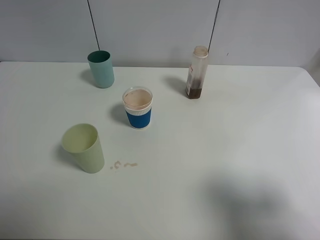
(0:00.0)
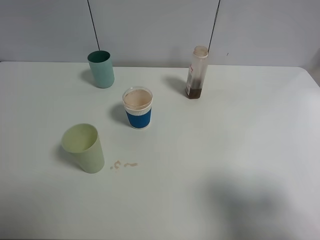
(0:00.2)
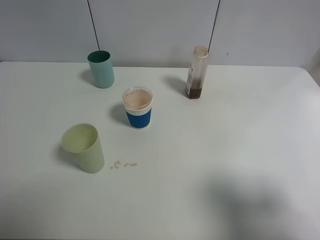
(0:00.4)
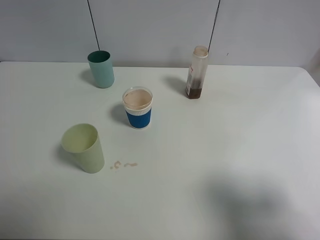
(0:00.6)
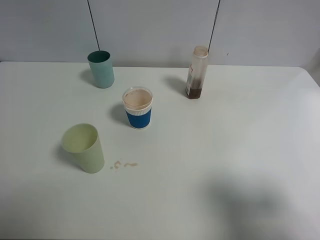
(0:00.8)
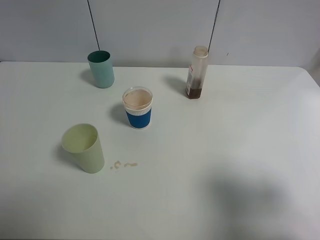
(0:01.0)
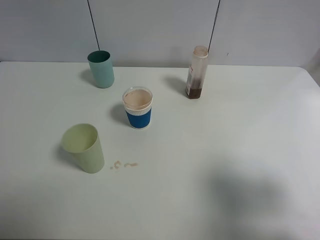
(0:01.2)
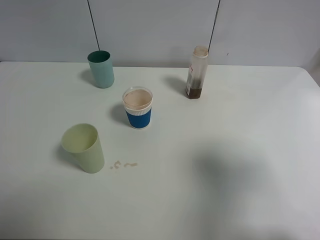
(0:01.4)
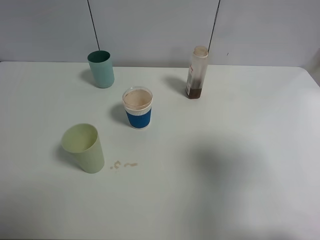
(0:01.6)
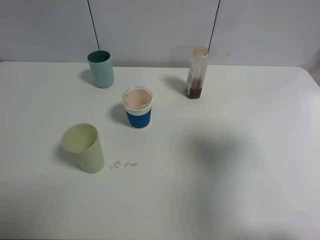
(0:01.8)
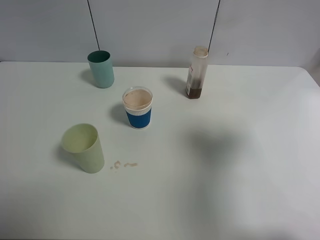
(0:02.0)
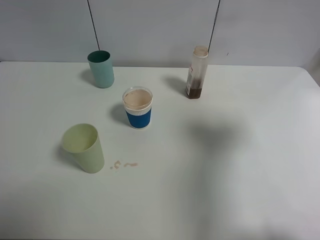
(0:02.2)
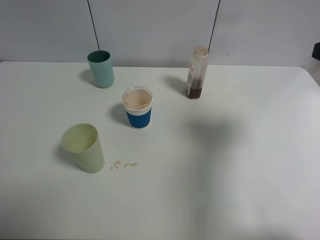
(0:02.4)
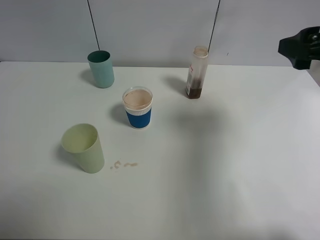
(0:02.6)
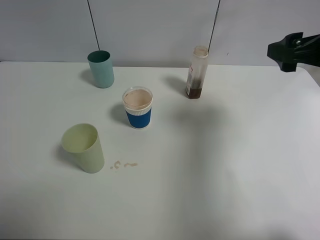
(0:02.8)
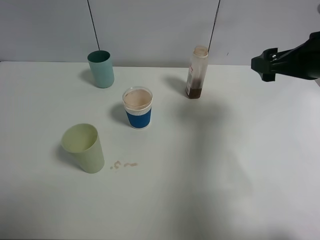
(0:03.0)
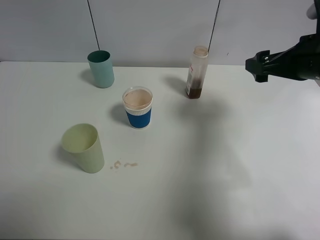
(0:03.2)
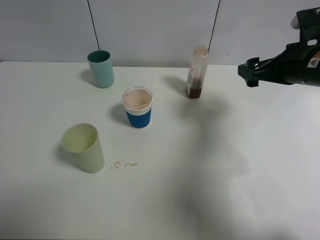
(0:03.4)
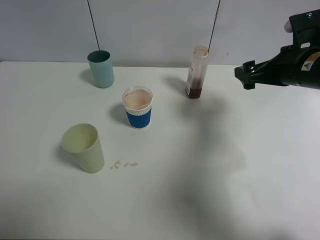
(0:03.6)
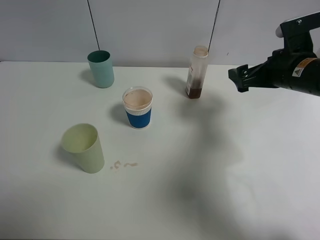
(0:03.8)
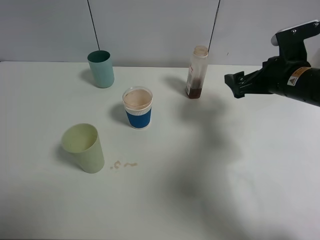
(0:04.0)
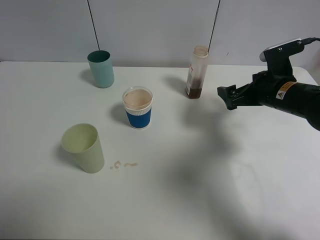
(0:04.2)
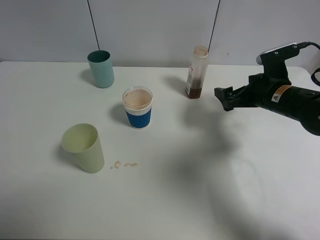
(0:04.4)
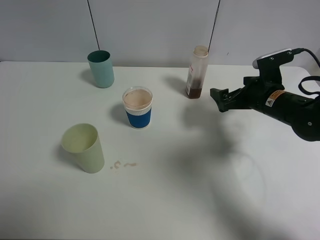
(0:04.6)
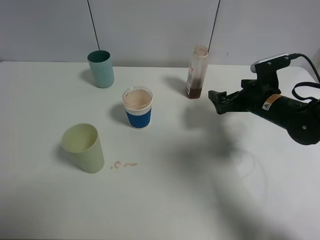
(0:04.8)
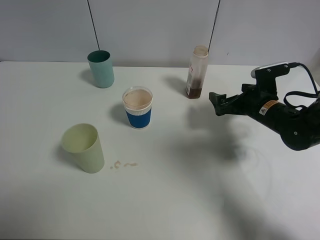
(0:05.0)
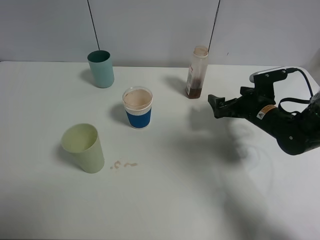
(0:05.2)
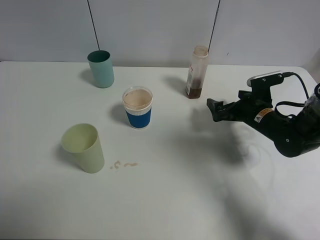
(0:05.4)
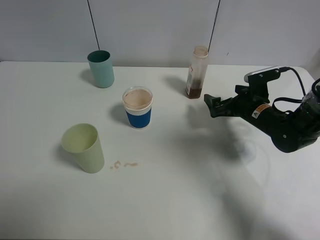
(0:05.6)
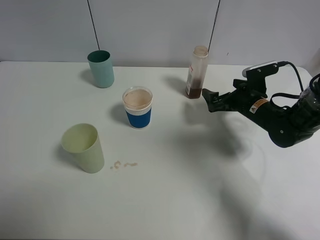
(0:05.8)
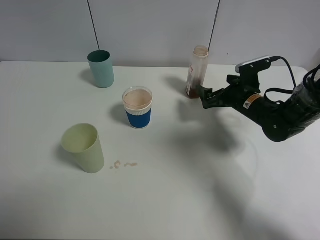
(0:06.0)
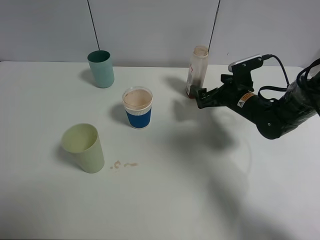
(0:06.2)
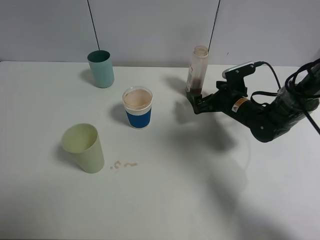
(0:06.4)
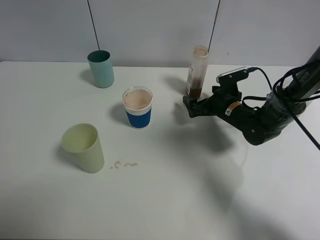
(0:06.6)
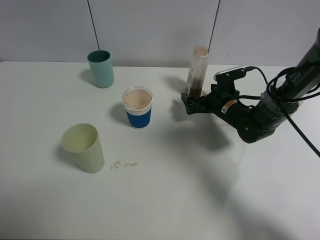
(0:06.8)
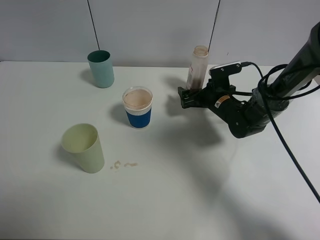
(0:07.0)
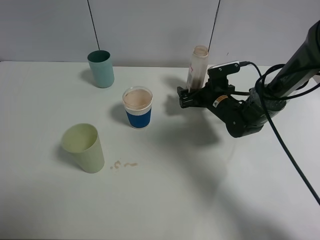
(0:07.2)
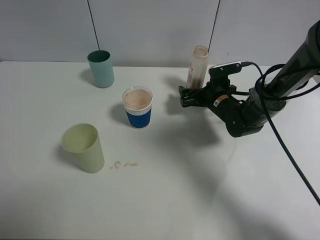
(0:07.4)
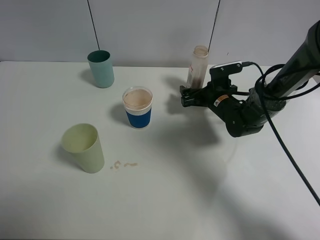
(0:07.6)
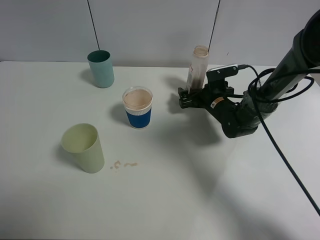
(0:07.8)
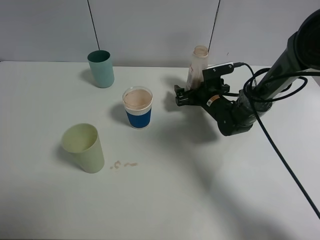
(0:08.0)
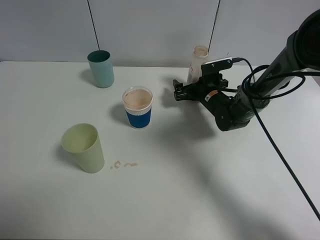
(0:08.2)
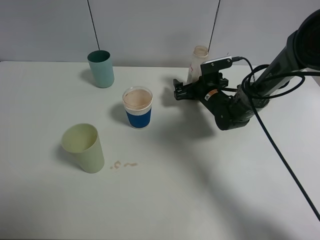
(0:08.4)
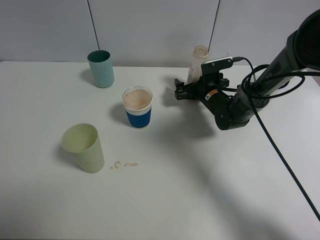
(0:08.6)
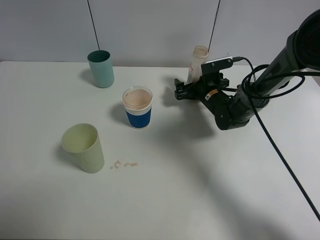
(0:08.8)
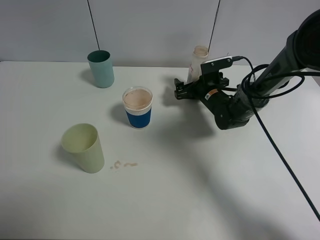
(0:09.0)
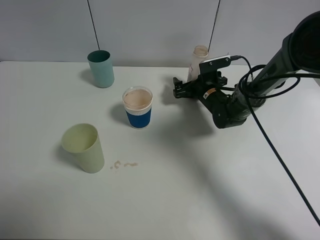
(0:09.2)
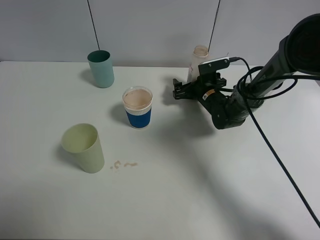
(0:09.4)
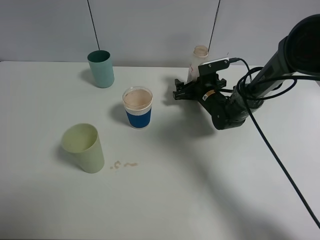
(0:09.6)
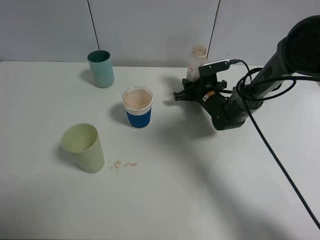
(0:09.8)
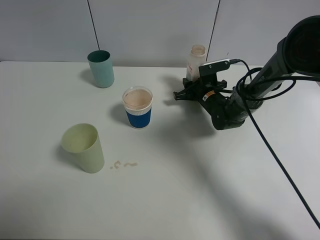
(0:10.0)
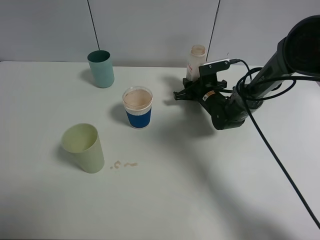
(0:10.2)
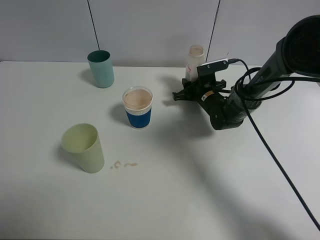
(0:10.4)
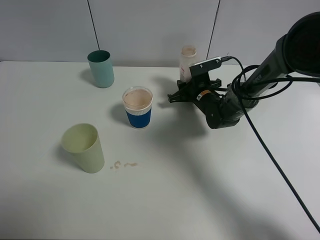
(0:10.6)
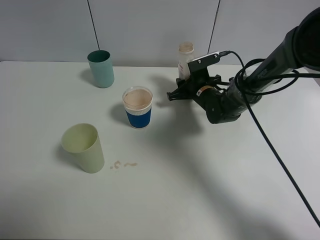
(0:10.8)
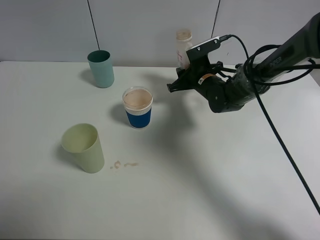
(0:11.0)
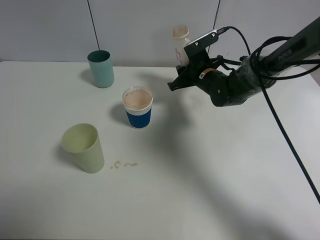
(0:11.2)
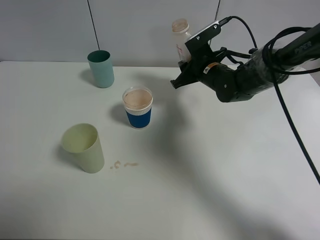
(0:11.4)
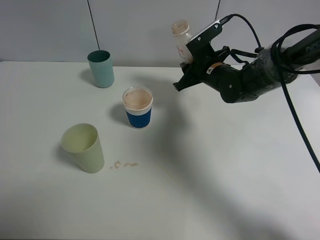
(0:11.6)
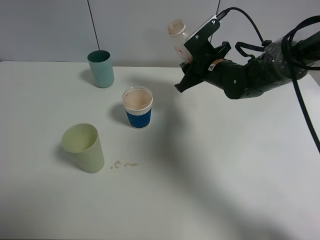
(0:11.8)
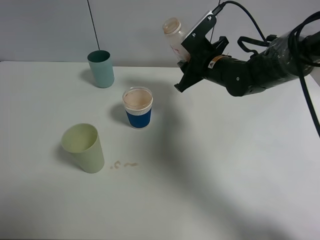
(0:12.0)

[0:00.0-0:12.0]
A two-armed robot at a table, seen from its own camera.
Task of the whole recording: use a clamp to hold the bottle of the drink, pour the beverage into a random cup, then clamp the cup containing the drink and pour the drink into another random cup.
Step, 0:00.0 to 0:10.8: Pick up the drink bottle with right gripper.
0:00.0 to 0:01.6: The right gripper moves forward, roughly 10 cm.
0:01.6 to 0:03.0: The right gripper moves forward, about 15 cm.
0:03.0 to 0:04.4: The right gripper travels downward by roughly 10 cm.
0:04.4 to 0:06.0: The right gripper shifts about 5 cm downward.
0:06.0 to 0:07.6: The right gripper changes place by approximately 5 cm.
0:07.6 to 0:09.0: The grippers stay close to where they were, moving slightly.
0:09.0 to 0:10.4: The right gripper closes up.
0:10.4 to 0:12.0: The right gripper travels upward by approximately 10 cm.

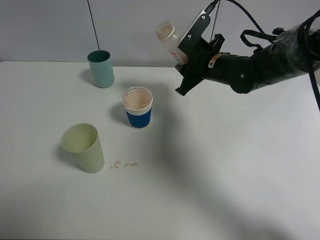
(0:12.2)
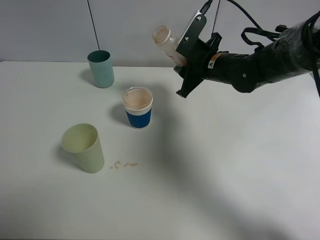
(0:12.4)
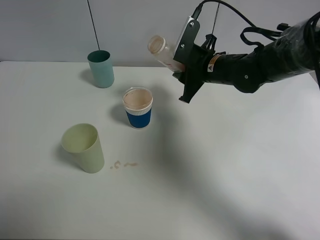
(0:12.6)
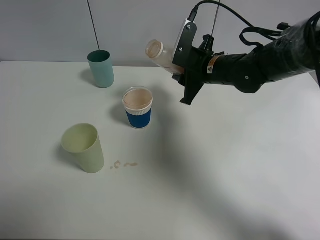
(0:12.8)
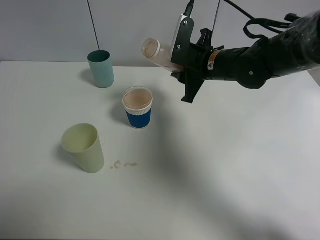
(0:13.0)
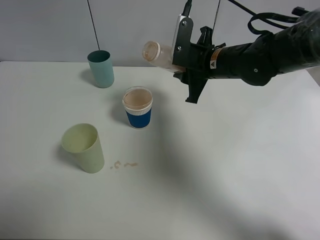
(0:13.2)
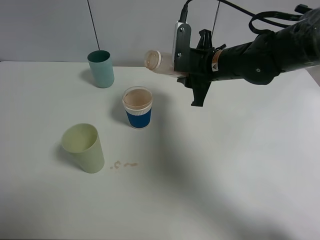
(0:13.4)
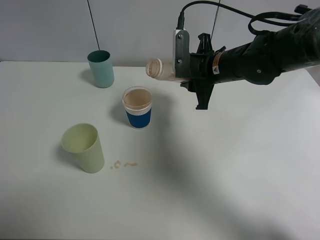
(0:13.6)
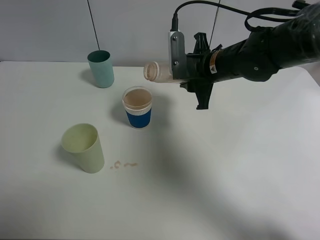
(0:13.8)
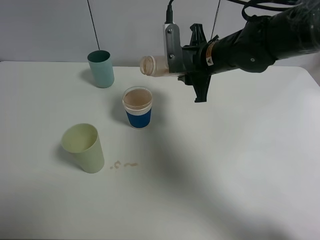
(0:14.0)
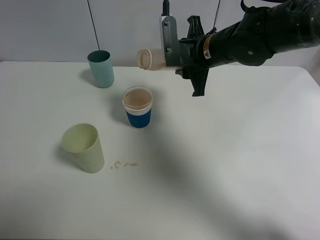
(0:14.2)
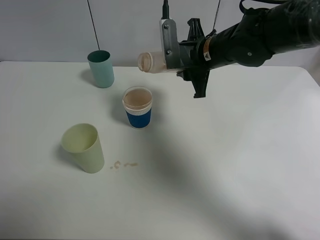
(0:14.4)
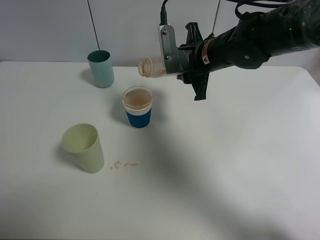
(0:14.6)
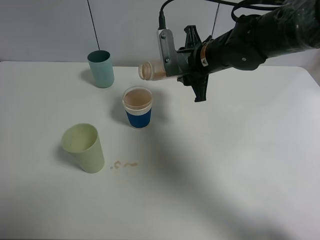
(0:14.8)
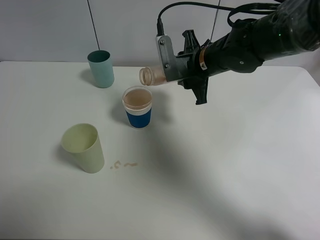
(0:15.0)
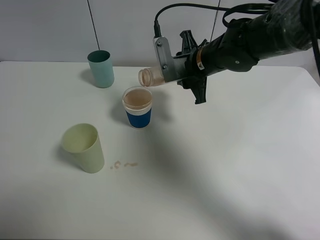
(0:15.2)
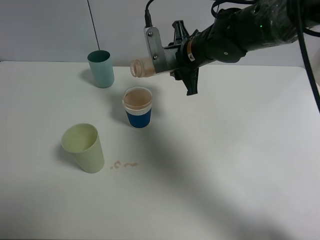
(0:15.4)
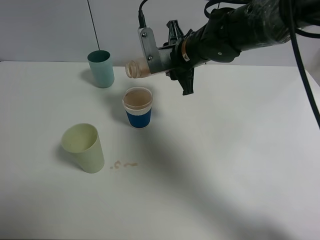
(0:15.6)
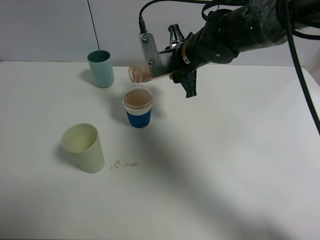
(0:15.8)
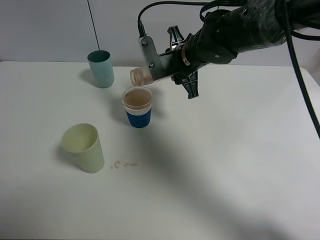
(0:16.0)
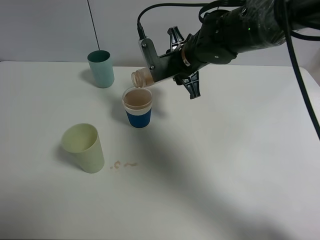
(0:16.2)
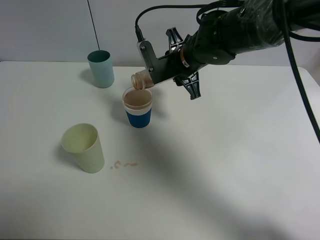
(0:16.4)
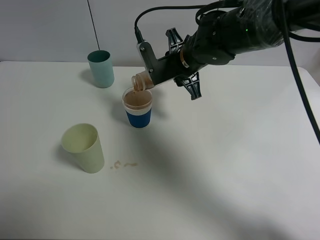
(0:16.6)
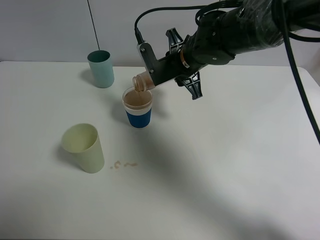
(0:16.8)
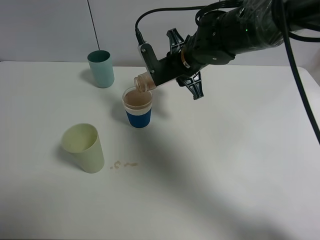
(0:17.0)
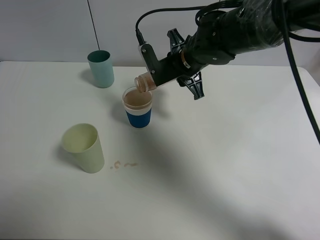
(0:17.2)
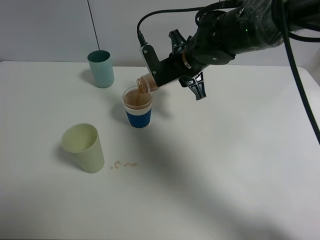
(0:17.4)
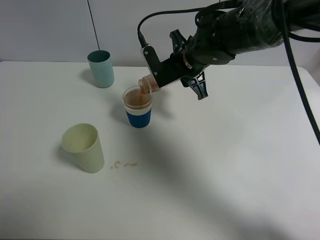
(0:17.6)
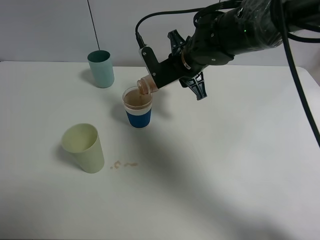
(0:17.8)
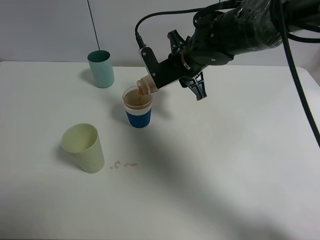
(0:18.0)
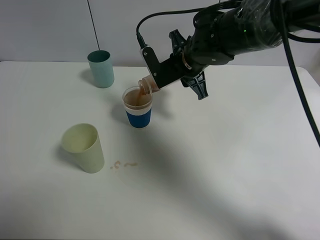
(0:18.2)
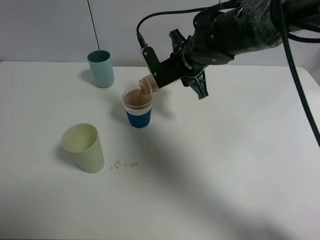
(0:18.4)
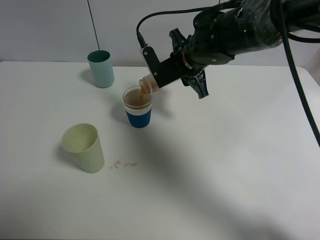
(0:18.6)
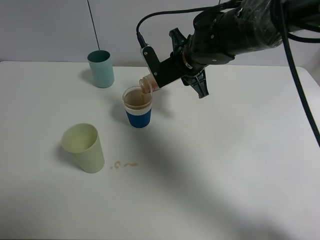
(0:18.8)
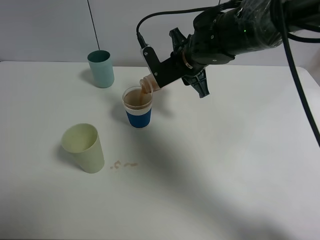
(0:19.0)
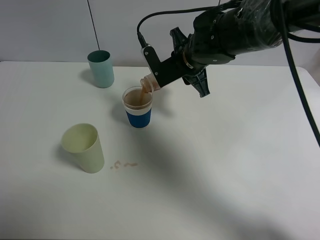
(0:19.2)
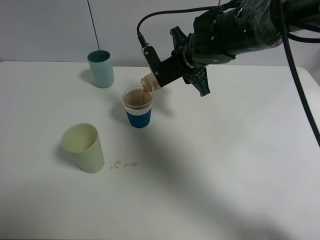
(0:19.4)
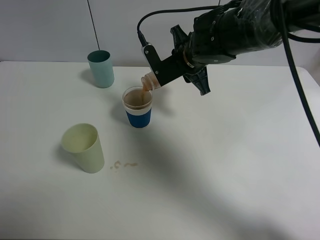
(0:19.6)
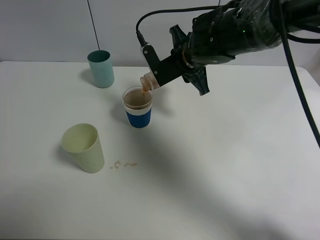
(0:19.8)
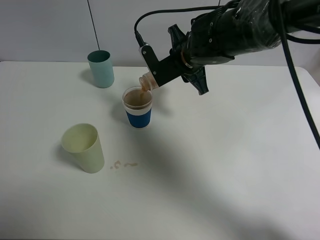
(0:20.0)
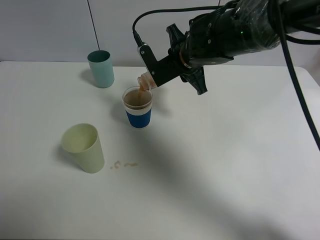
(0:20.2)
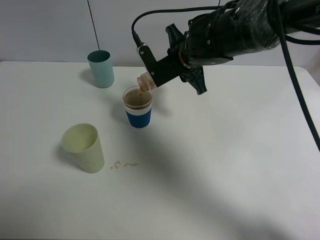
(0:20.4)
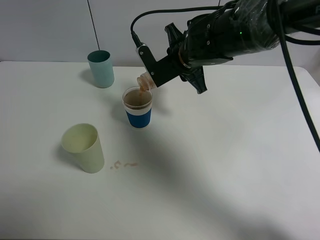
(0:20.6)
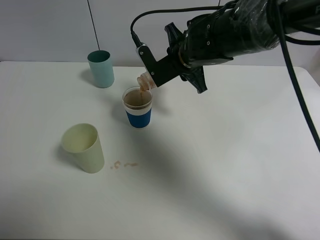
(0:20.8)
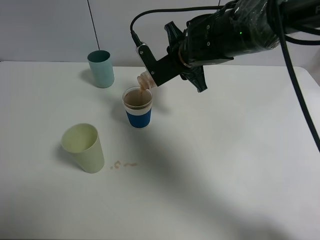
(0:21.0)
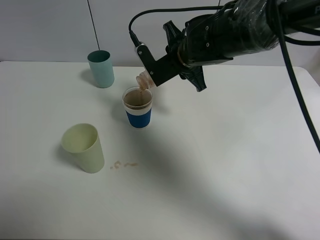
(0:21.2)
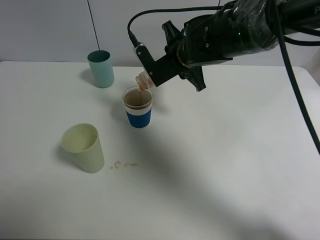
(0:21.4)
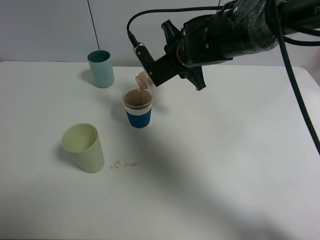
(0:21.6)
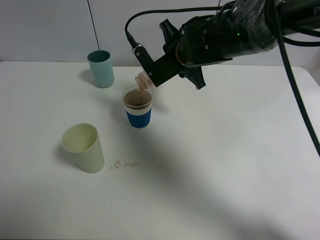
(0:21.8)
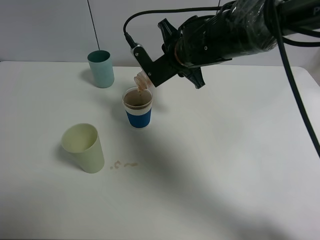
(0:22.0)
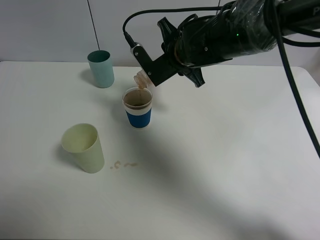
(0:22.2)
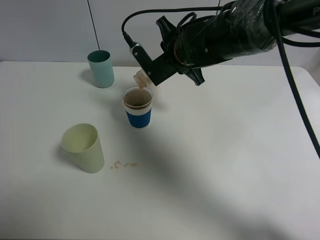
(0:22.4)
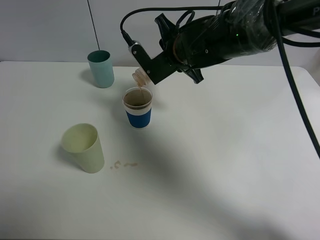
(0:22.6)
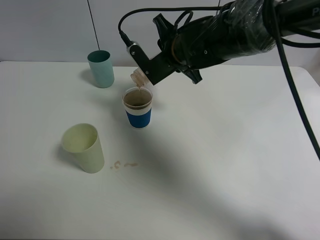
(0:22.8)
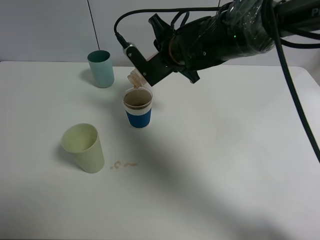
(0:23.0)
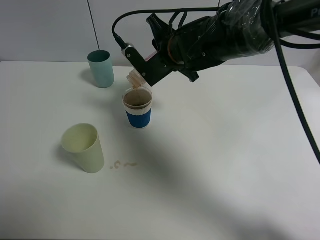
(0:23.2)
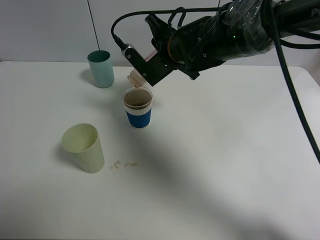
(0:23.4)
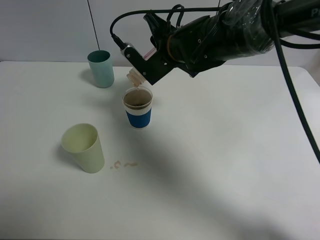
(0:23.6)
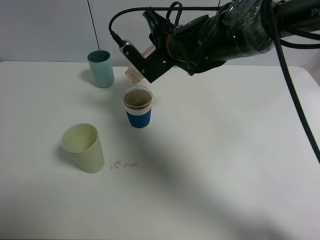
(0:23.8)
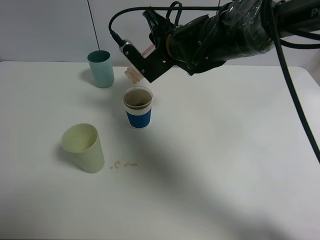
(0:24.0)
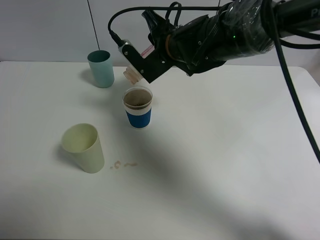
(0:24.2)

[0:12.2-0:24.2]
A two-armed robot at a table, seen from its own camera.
Task of the whole recording: use a clamp to hold the bottle of the drink, pour the beverage into a random cup, then clamp the cup containing the drink and pour the drink into another random cup.
0:13.8 to 0:15.2: There are only small adjustments of the grippers.
0:15.2 to 0:18.2: There are only small adjustments of the grippers.
0:18.2 to 0:19.8: Neither gripper changes place.
0:19.8 to 0:22.6: There are only small adjustments of the grippers.
0:22.6 to 0:24.2: There are only small adjustments of the grippers.
